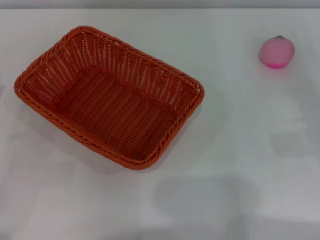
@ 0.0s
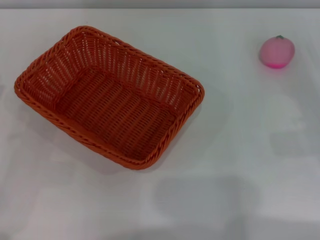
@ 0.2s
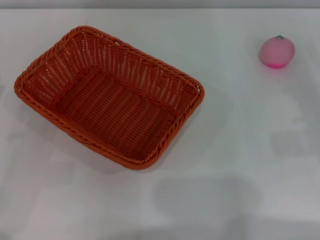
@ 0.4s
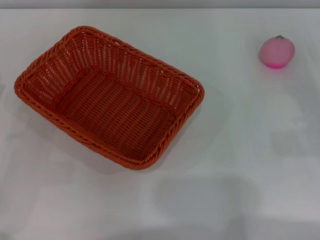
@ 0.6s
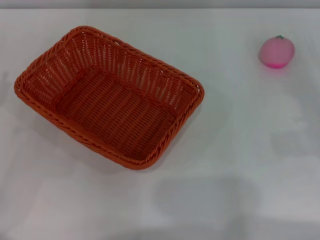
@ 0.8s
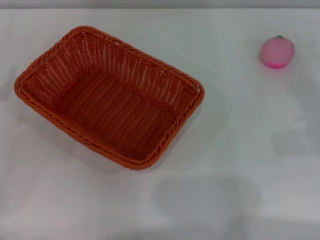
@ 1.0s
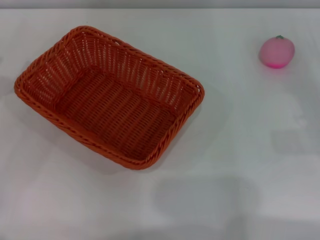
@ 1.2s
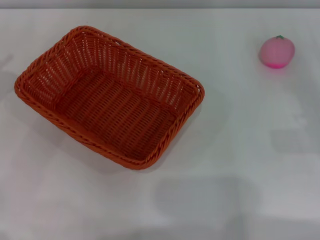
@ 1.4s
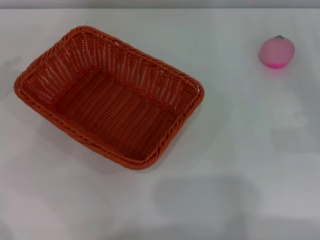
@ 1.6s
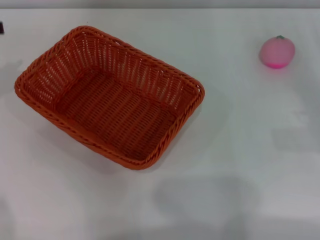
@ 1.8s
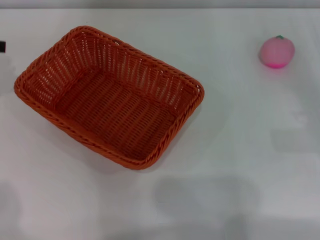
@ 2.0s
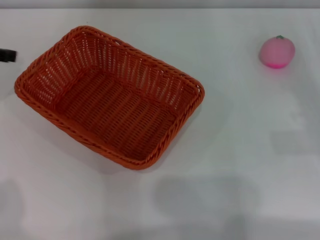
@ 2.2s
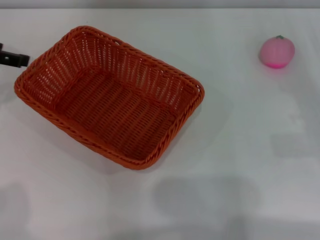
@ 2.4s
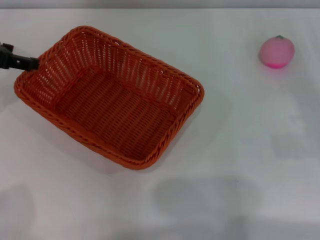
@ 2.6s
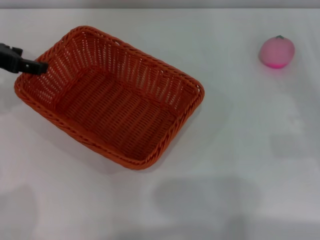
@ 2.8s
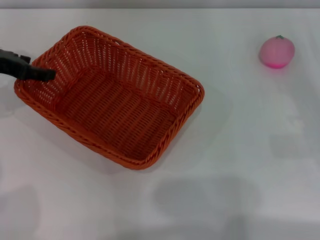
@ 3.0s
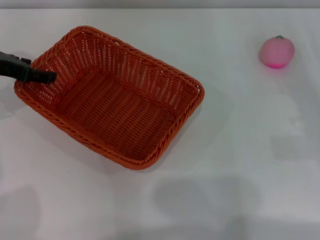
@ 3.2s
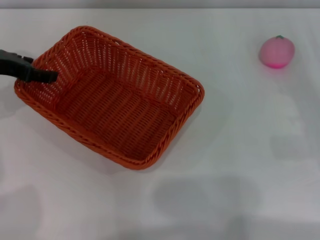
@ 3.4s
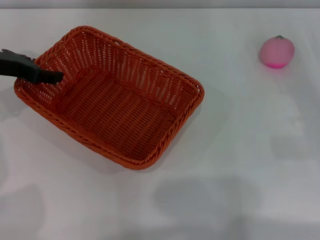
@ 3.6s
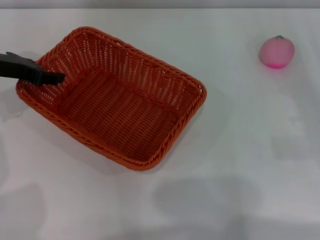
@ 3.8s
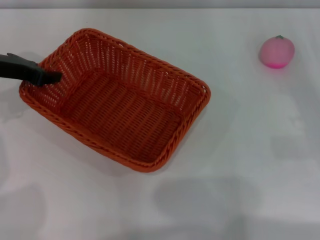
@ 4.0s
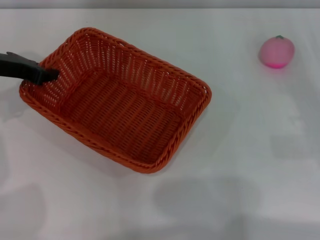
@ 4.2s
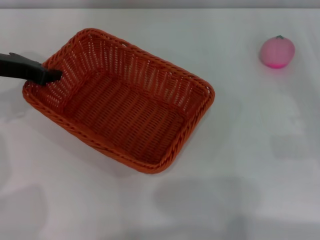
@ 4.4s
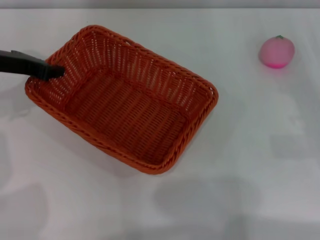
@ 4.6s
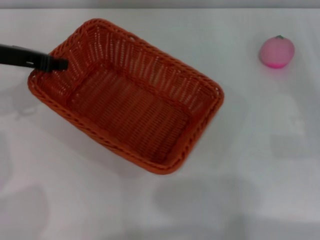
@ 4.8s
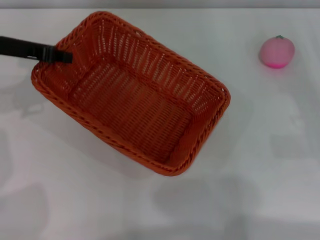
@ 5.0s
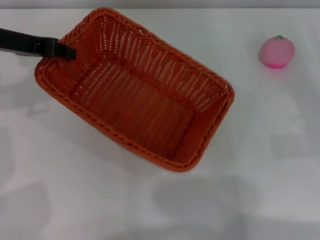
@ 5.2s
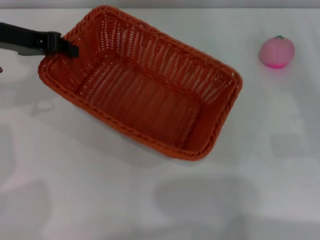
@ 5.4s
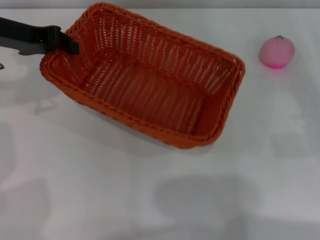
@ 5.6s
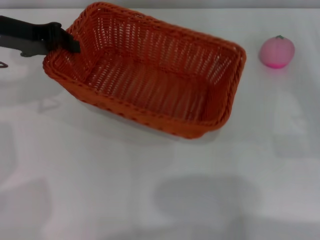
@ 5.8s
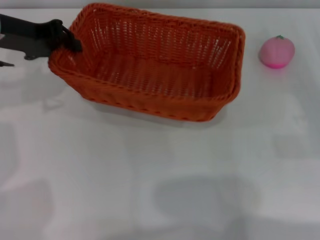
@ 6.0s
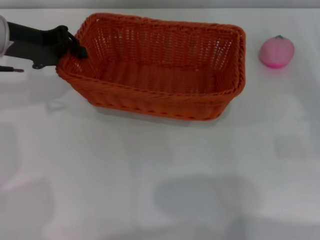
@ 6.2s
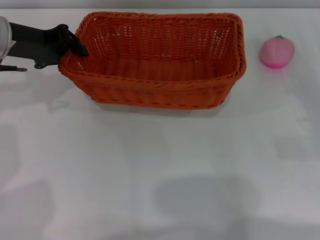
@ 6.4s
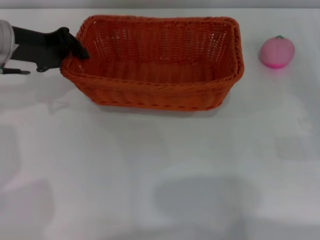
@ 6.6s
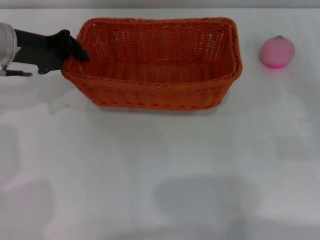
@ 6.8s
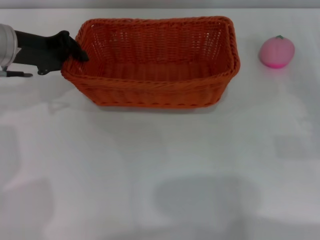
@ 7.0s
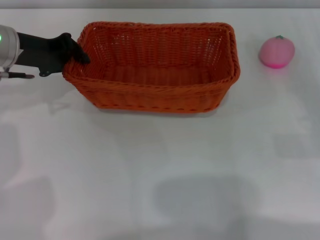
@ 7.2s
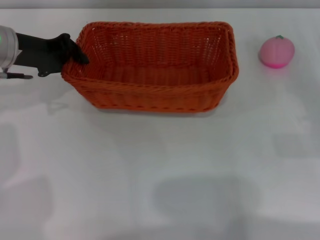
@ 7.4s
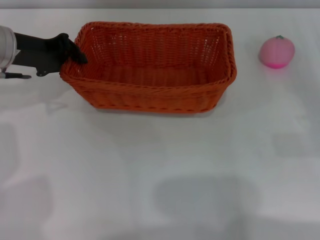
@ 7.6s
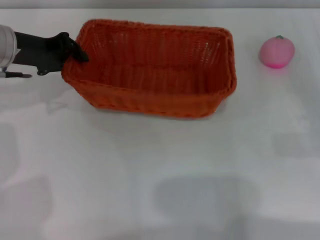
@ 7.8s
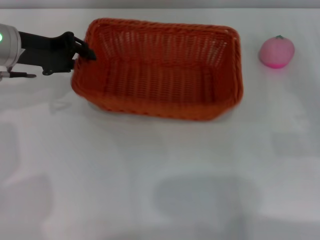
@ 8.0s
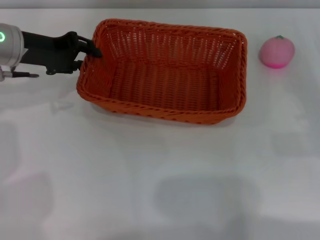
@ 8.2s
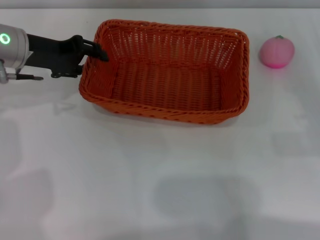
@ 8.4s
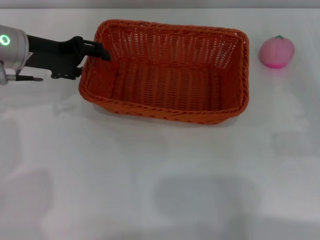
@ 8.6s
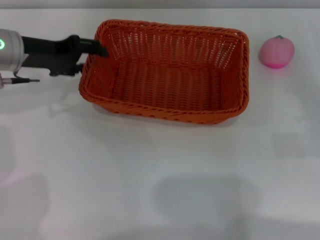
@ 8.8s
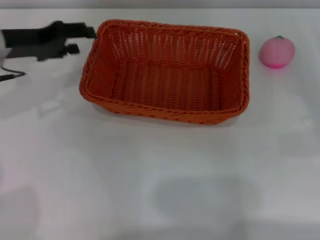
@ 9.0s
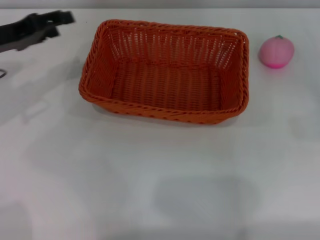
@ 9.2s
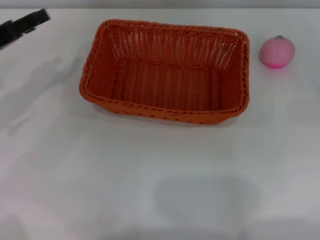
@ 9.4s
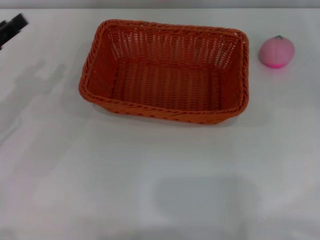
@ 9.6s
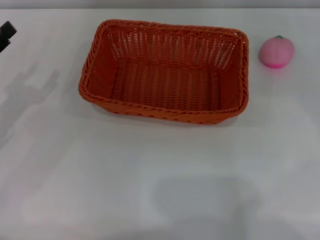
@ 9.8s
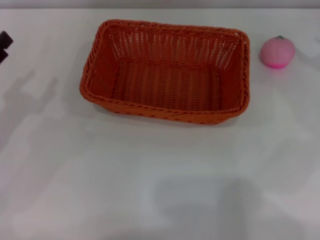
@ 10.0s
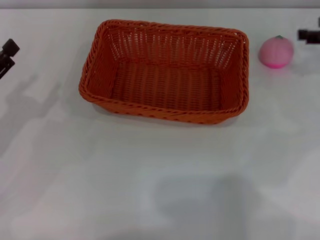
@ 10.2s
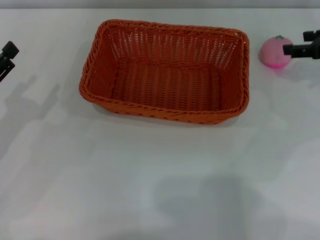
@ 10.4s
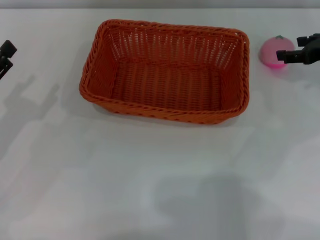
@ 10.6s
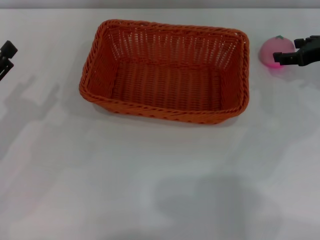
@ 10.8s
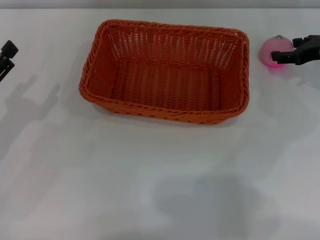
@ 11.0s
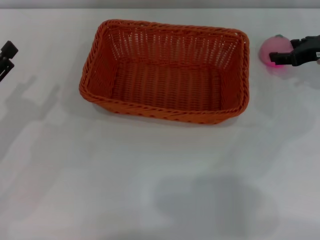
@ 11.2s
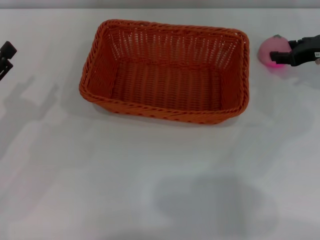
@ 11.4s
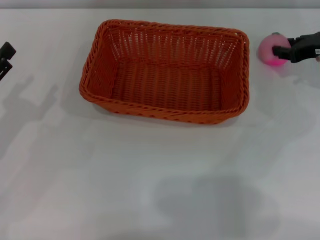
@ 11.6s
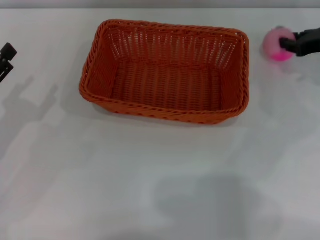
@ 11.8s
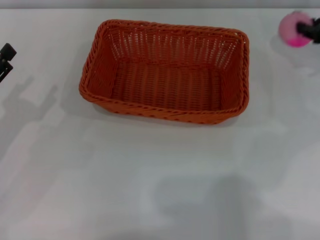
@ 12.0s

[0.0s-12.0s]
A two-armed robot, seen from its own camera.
Step, 0.0s to 5.0s: Pick up the light basket with the left gripper.
Step, 5.4s to 9.0s: Place the light basket in the center of view with the right gripper.
1.6s to 3.0s: The left gripper heads to the right, covering roughly 10 cm.
3.0s to 4.4s: The left gripper closes.
4.4s to 6.0s: The left gripper shifts approximately 5 cm upward.
6.0s to 7.6s: There are only small adjustments of the grippers.
7.6s to 9.0s: The left gripper opens its fingers.
9.0s to 10.4s: The right gripper moves forward and upward, roughly 15 cm. The left gripper shifts approximately 15 cm backward, downward and to the left.
10.4s to 12.0s: The right gripper closes.

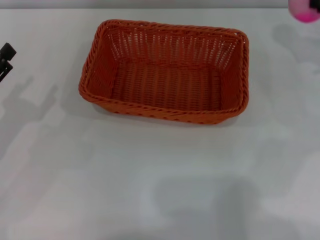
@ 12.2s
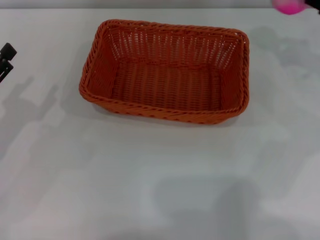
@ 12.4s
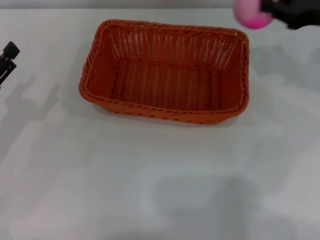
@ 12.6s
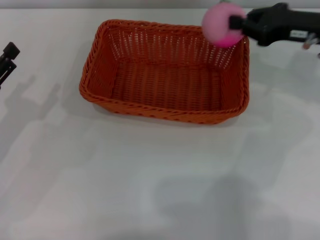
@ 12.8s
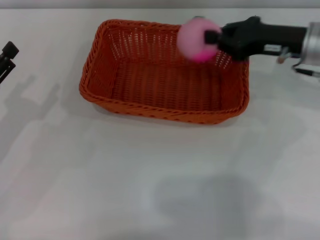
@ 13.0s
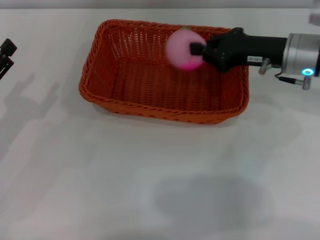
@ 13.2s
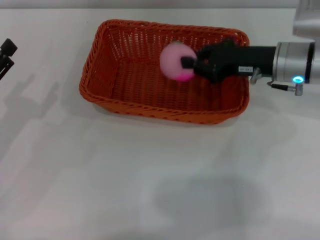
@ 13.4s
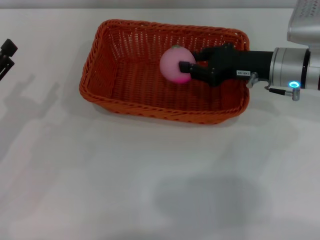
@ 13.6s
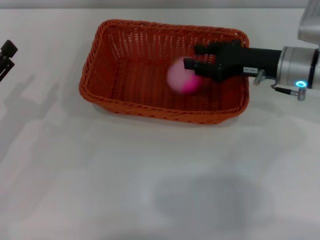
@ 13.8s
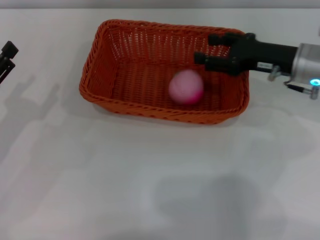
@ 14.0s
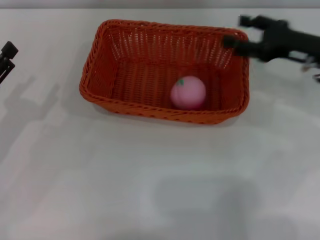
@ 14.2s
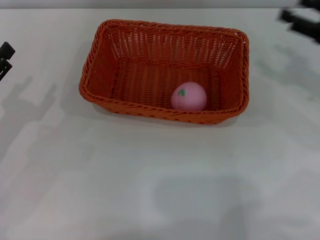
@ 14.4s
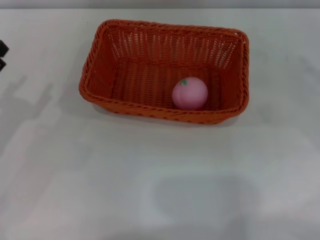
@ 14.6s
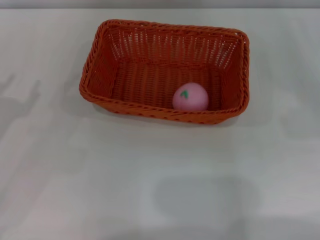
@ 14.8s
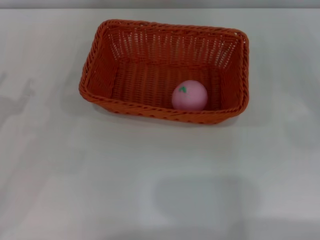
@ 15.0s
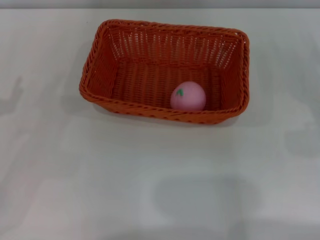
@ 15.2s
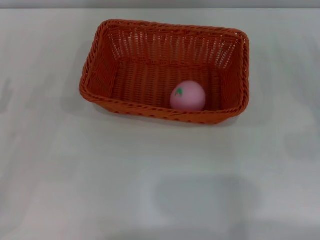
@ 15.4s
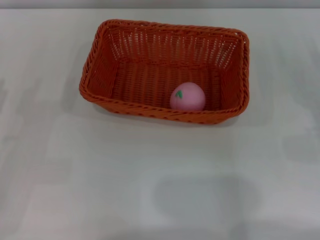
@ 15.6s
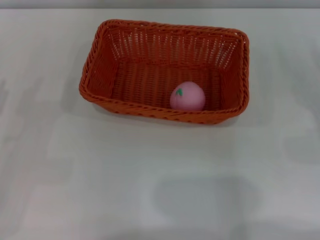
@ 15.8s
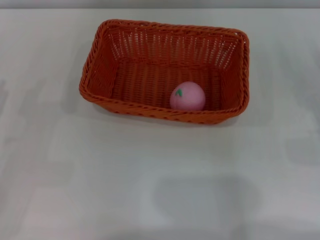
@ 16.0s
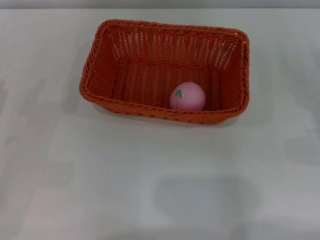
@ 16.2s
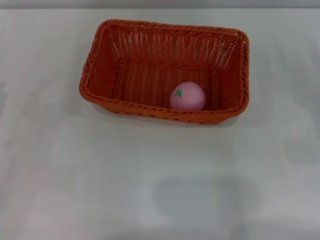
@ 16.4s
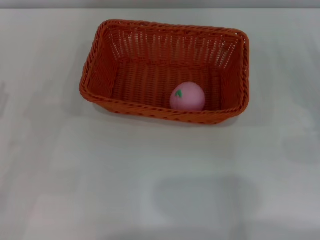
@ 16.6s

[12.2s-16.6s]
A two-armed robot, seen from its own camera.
12.2s to 13.6s: The right gripper travels to the left and downward by roughly 15 cm.
13.6s to 15.2s: The right gripper goes about 20 cm to the right and backward, and opens.

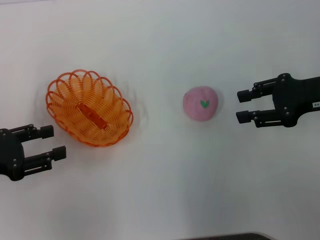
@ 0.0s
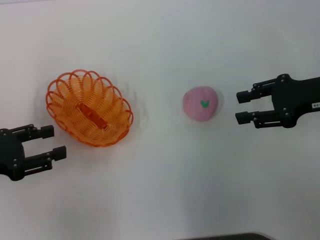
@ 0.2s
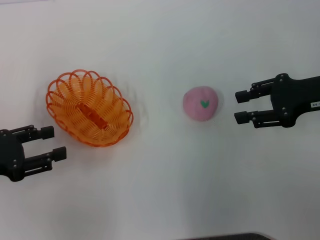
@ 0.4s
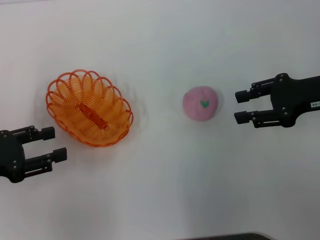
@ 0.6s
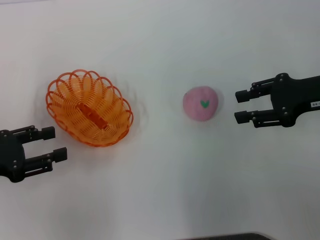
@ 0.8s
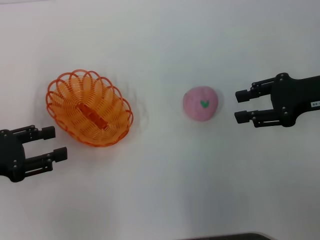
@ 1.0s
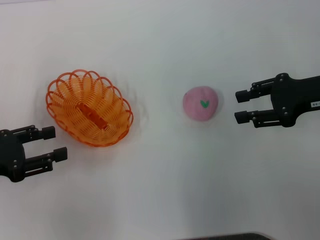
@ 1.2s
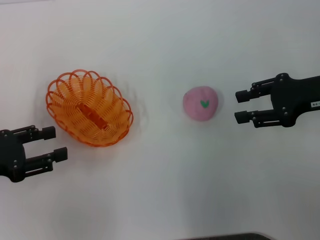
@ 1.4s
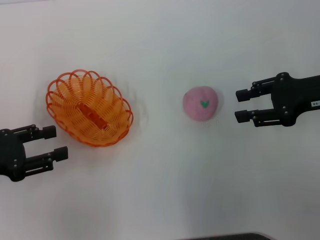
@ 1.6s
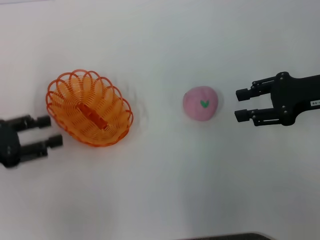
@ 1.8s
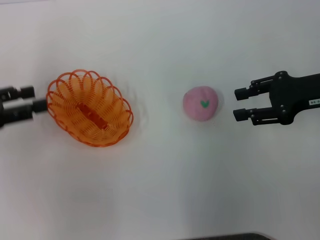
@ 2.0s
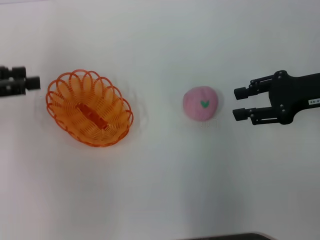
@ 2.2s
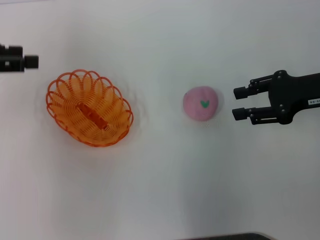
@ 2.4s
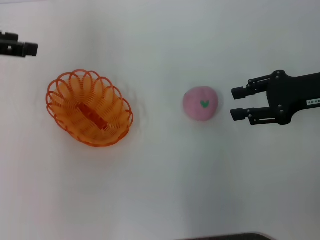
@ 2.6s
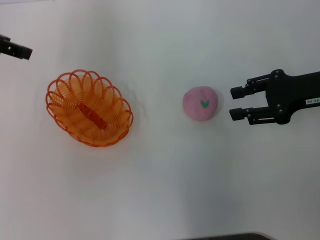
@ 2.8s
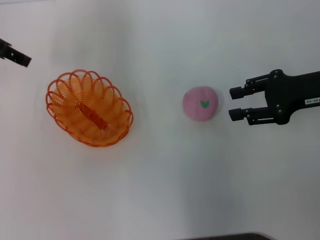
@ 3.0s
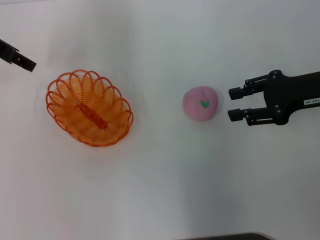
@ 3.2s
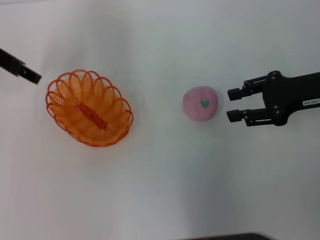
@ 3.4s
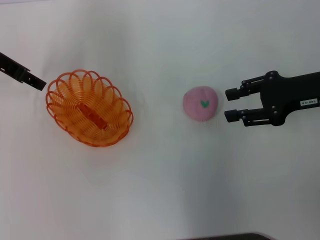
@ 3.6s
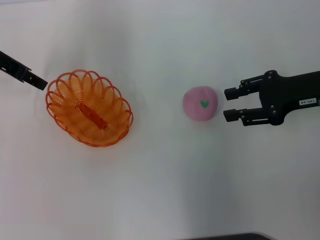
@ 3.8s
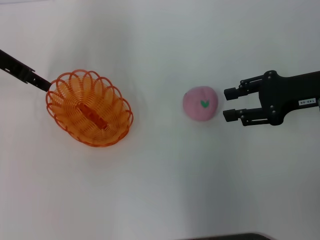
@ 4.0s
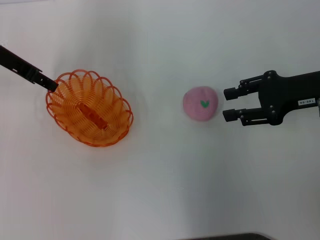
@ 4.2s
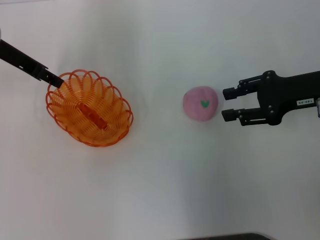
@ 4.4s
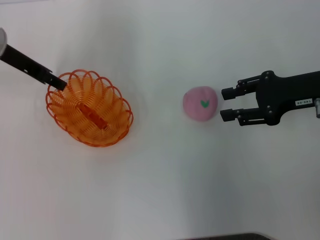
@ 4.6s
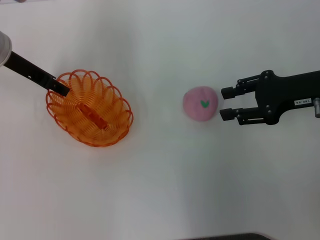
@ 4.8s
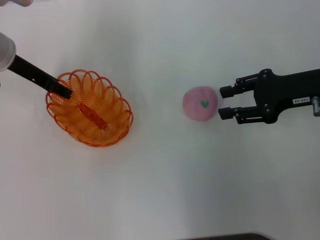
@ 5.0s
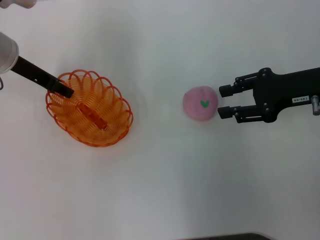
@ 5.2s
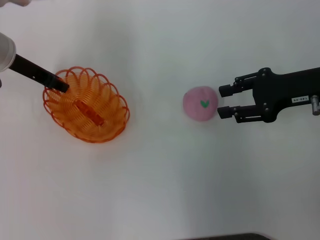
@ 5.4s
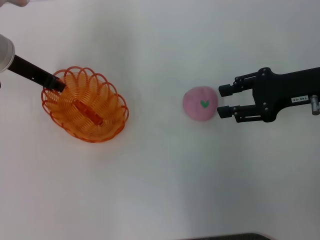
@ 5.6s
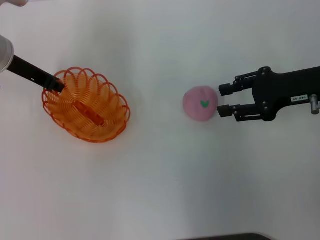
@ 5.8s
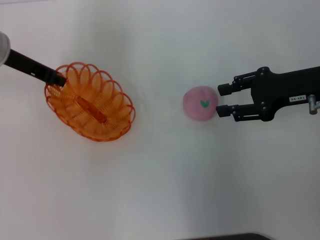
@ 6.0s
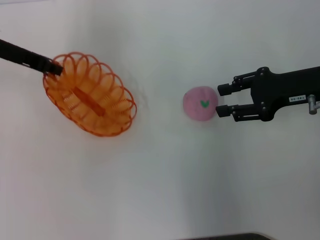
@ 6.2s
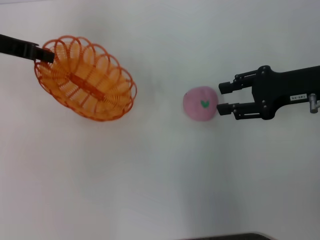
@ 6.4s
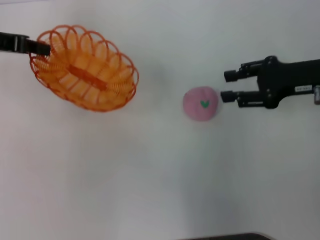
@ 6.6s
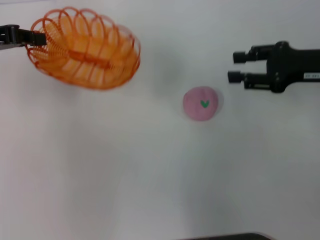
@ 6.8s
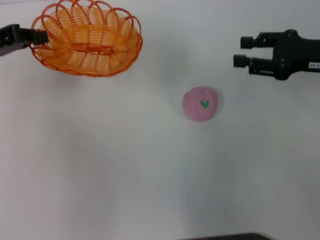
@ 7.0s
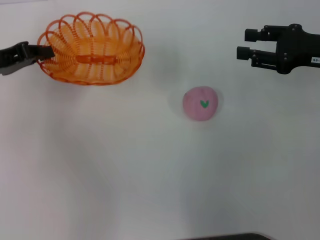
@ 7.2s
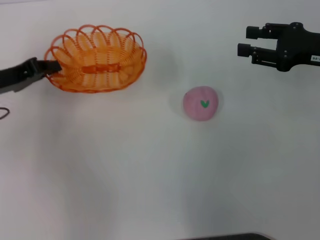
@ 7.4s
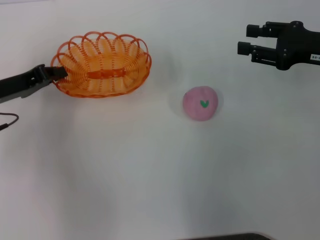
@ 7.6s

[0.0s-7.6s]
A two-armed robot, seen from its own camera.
Step, 0.0s to 6.8s: Pick up the basket with the left gripper.
0.0s to 1.6s: Both grippers stay put.
1.6s to 3.0s: The left gripper shifts roughly 20 cm forward and upward.
3.0s to 4.6s: The left gripper goes approximately 5 cm downward.
4.6s to 6.0s: The left gripper closes up.
6.0s to 7.6s: The left gripper heads backward and downward, covering approximately 10 cm.
